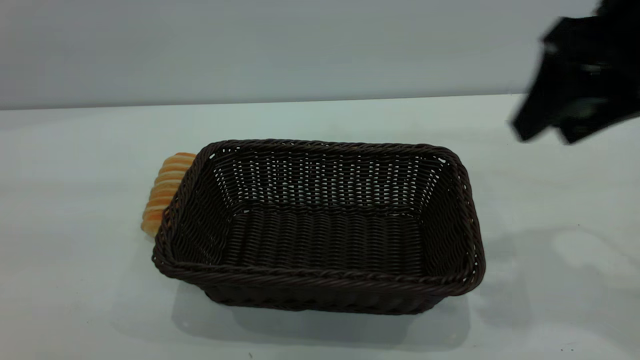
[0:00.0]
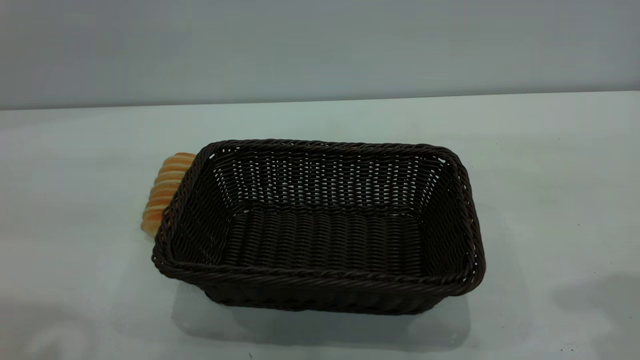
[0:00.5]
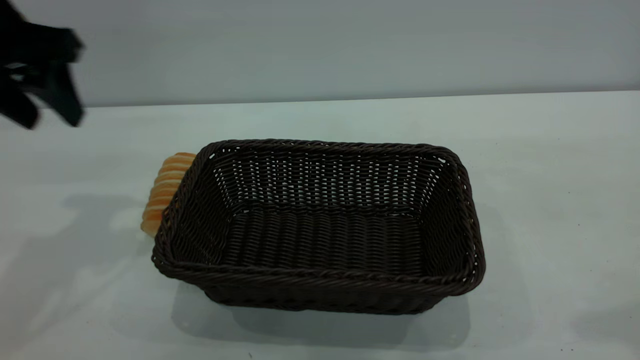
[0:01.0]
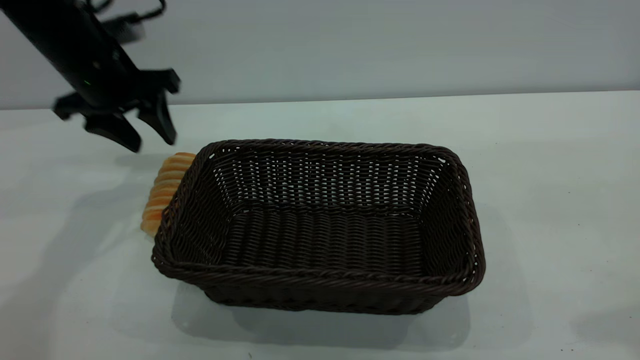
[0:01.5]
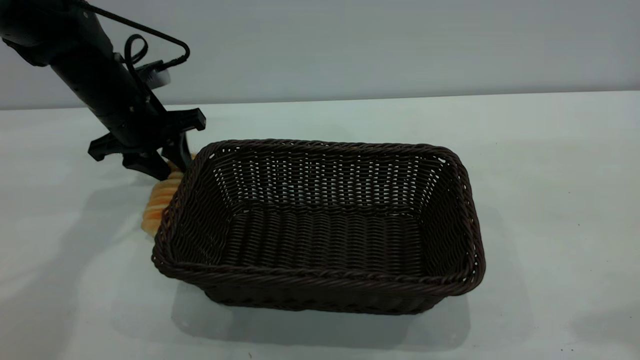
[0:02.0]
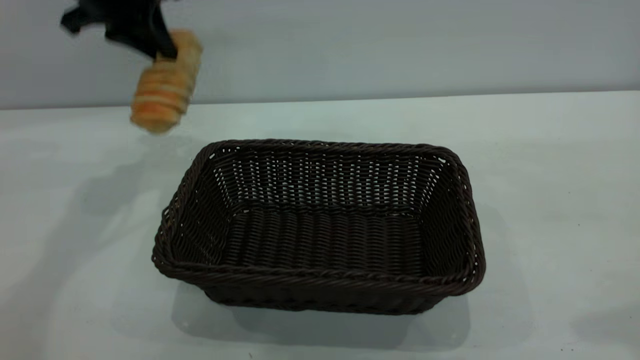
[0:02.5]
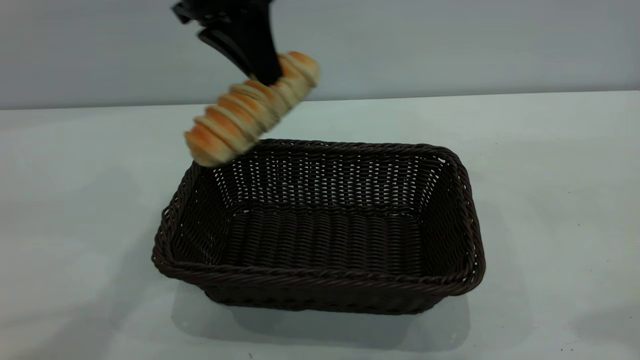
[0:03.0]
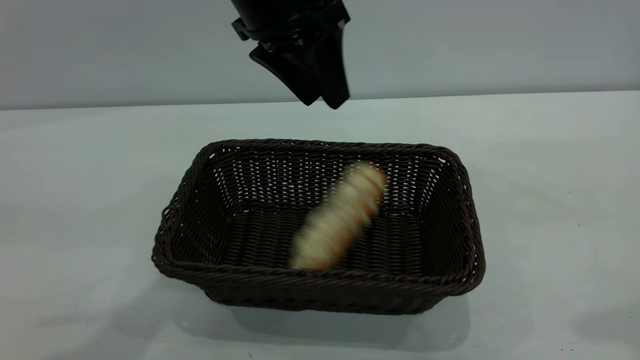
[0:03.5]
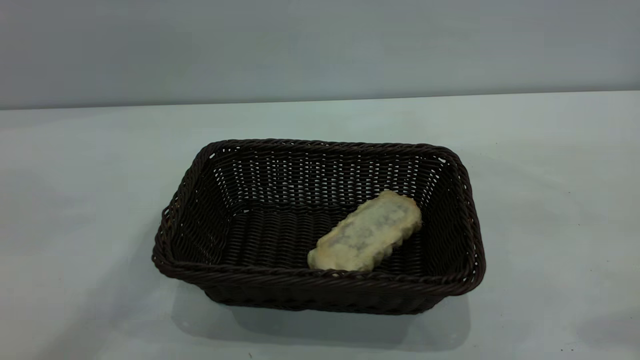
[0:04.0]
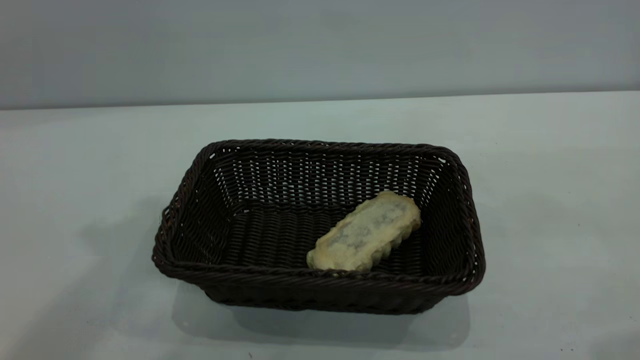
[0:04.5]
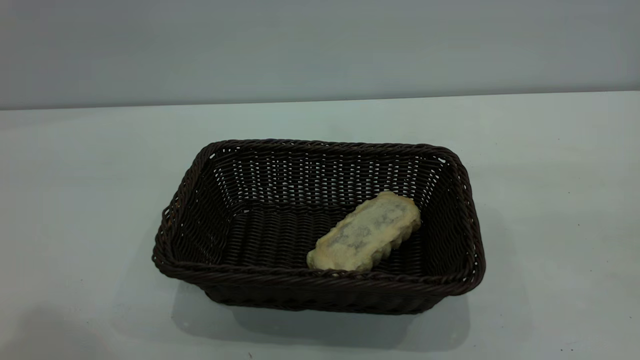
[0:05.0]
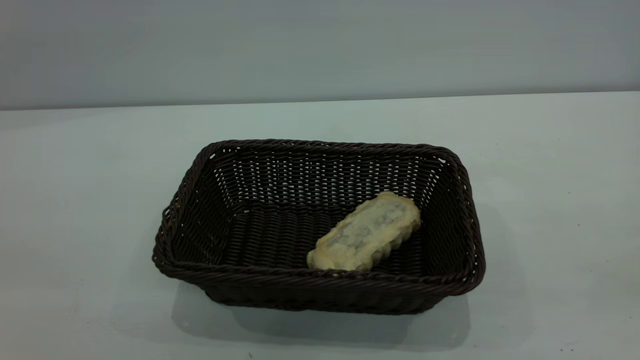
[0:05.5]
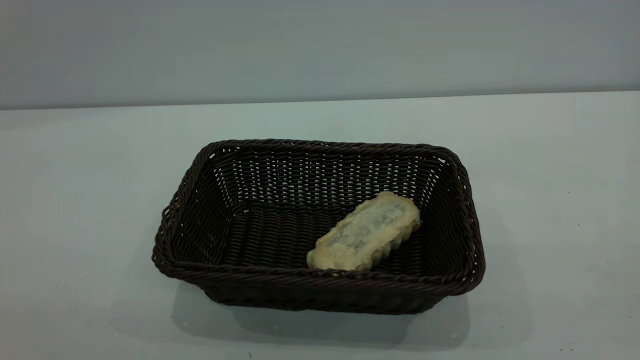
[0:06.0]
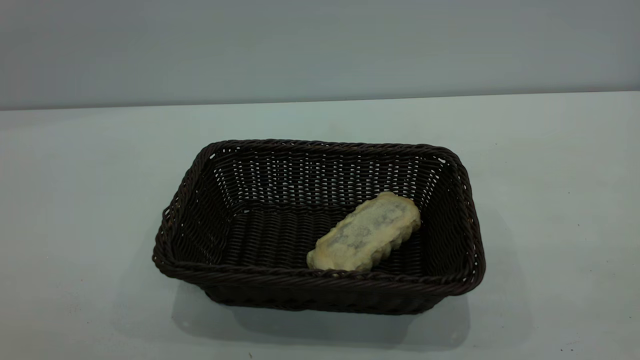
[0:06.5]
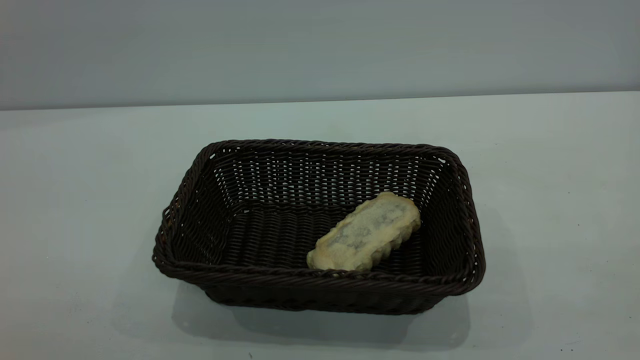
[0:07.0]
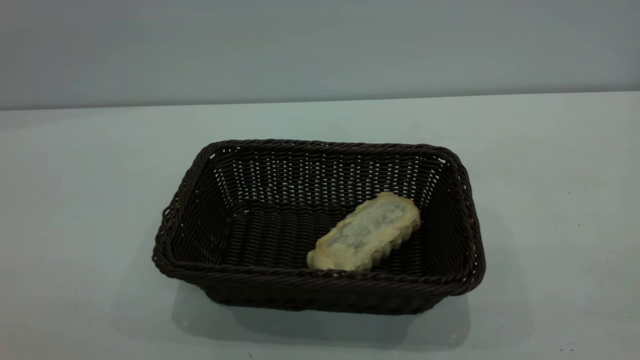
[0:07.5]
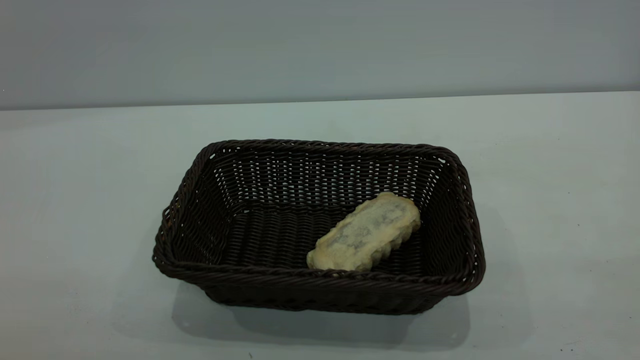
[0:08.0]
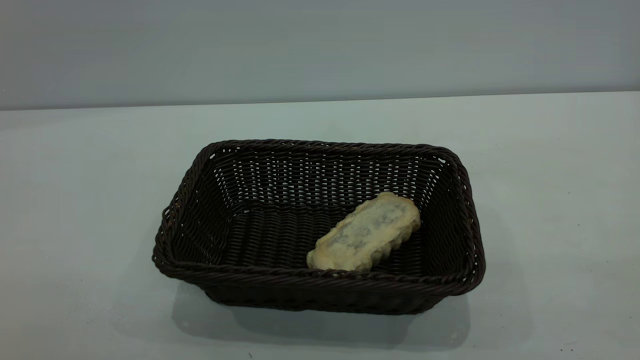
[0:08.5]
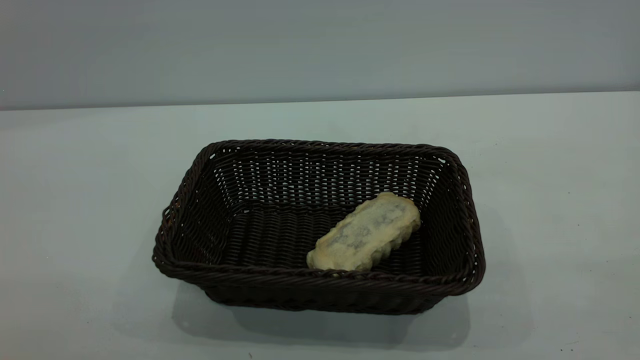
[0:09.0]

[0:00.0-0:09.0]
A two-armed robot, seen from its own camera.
Task of the whole recording: One hand grasps the black basket and places it in the middle of the table, while the other hand picks up the long bread and puts it into the black basket.
Step, 0:02.5 to 0:03.5: place the bread into the basket.
0:00.0 to 0:02.0: The left gripper is displaced forward and downward by some 40 cm, and closes. Meanwhile the right gripper moves backward and upward, approximately 15 cm.
0:02.0 to 0:04.5: The left gripper heads upward and backward, covering some 40 cm, and opens.
